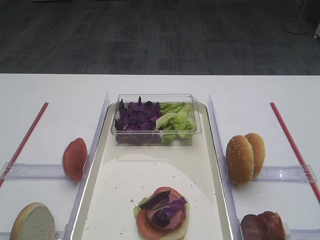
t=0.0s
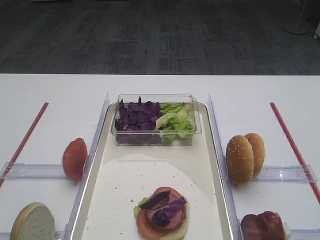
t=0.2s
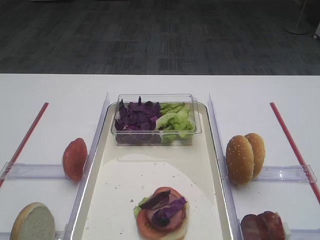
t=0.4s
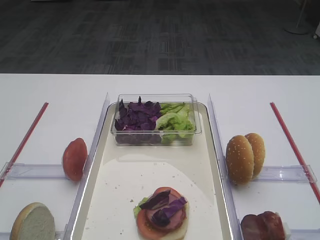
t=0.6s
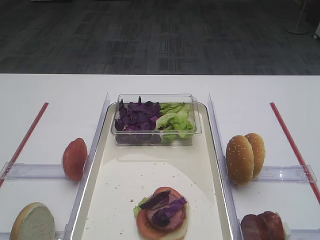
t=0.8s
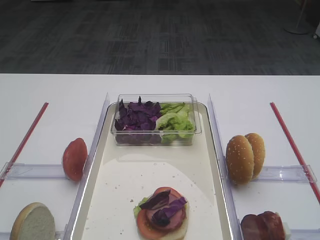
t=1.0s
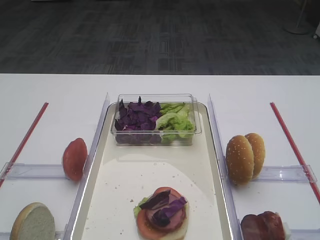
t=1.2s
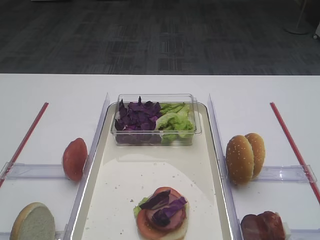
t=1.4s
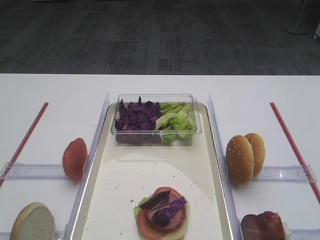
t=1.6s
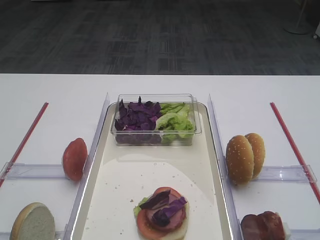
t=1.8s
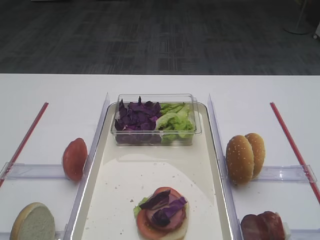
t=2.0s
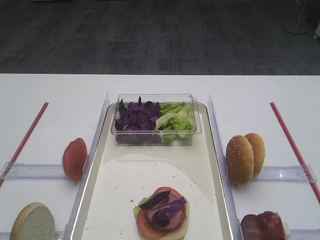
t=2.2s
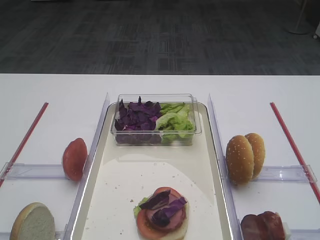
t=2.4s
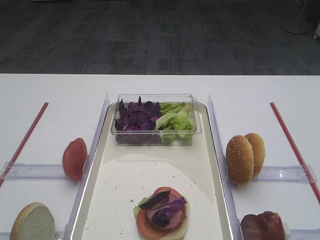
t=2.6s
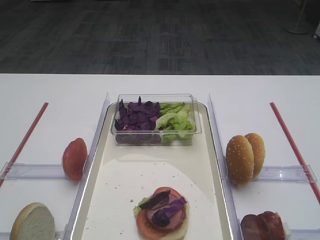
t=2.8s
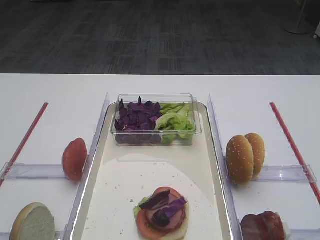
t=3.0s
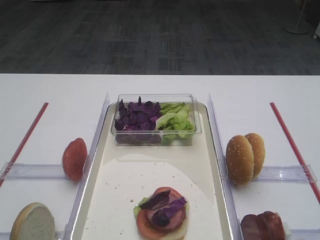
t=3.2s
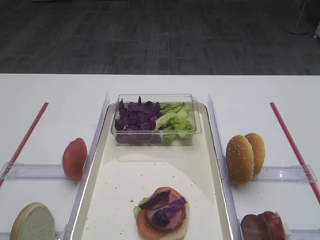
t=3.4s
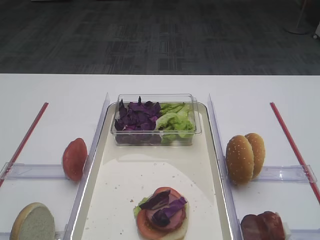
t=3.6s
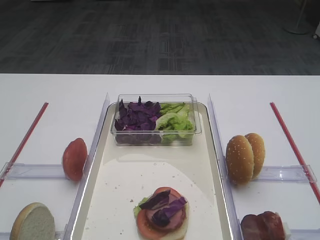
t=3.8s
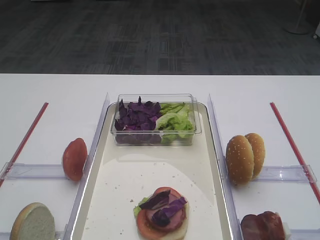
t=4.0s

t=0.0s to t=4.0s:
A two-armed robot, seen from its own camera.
t=0.0s to t=4.0s: Neither gripper changes place.

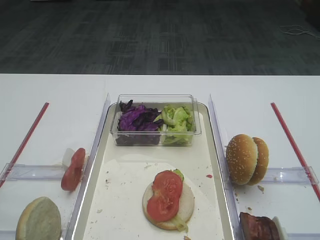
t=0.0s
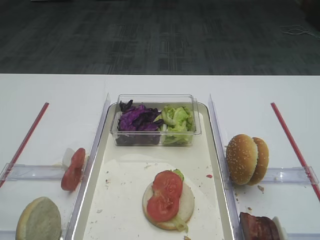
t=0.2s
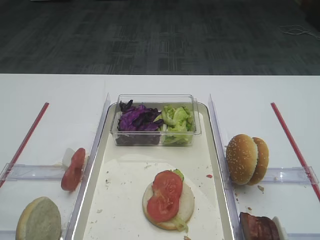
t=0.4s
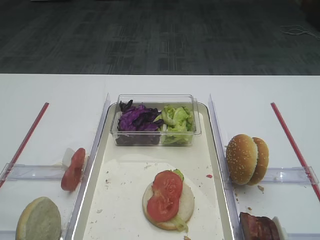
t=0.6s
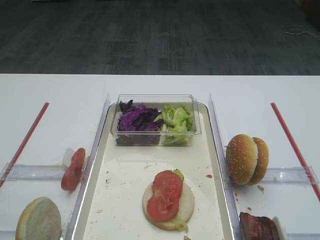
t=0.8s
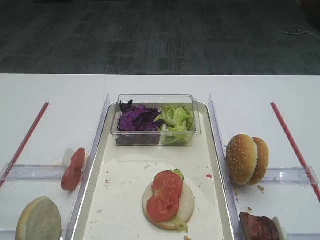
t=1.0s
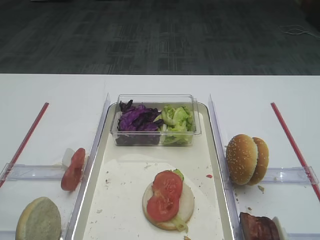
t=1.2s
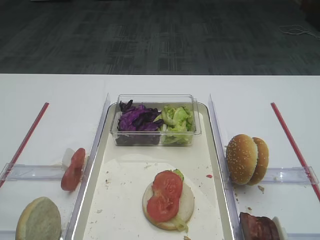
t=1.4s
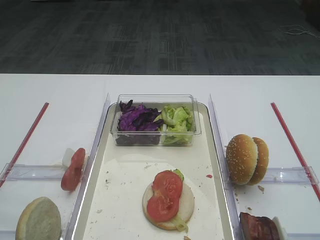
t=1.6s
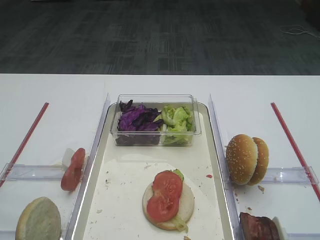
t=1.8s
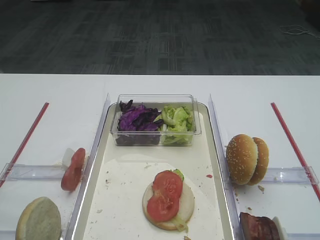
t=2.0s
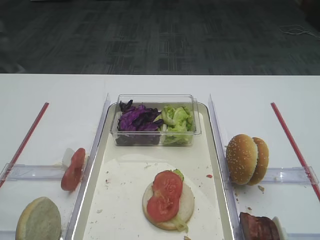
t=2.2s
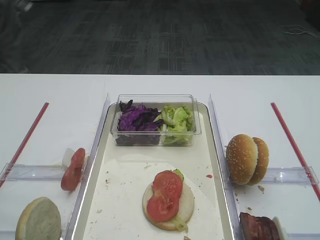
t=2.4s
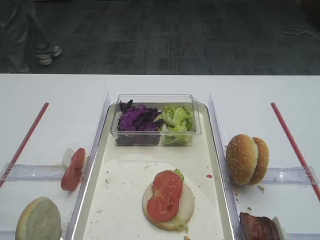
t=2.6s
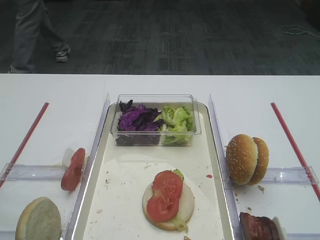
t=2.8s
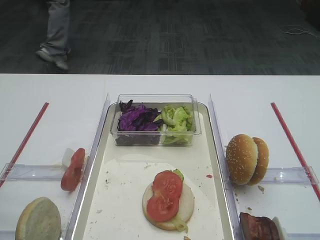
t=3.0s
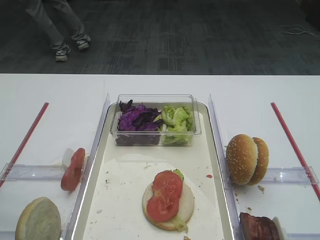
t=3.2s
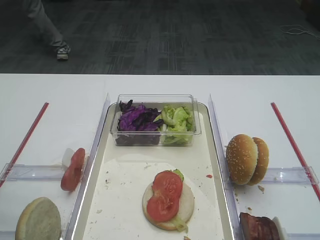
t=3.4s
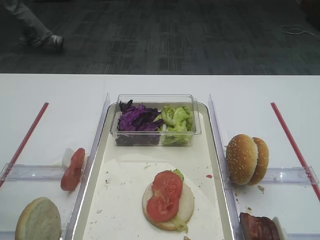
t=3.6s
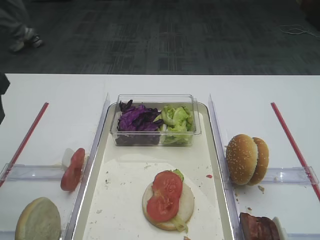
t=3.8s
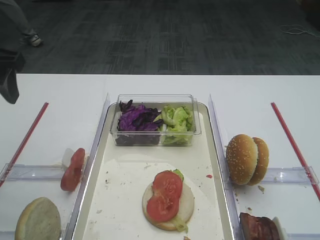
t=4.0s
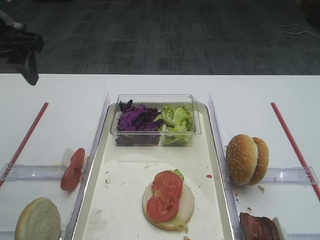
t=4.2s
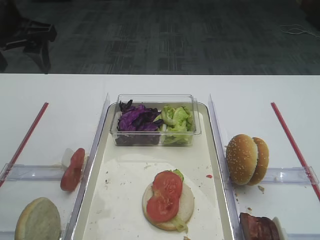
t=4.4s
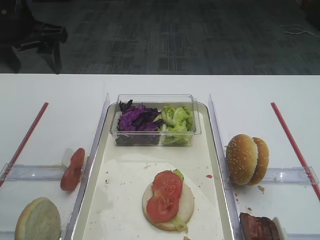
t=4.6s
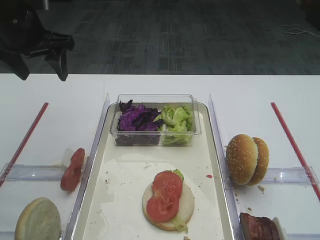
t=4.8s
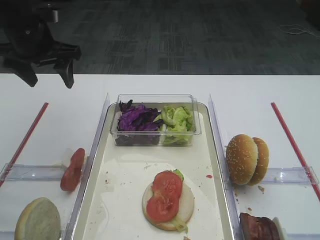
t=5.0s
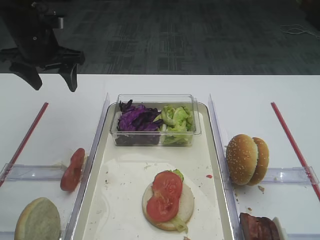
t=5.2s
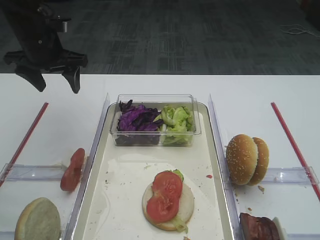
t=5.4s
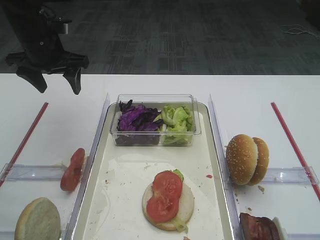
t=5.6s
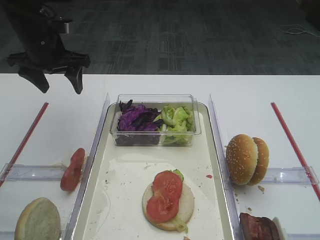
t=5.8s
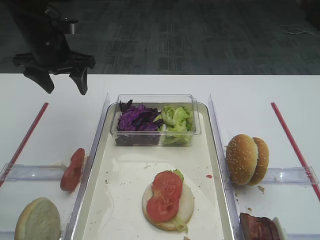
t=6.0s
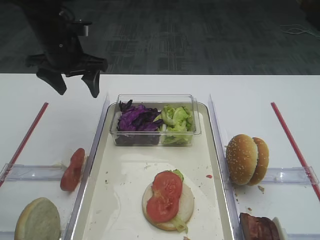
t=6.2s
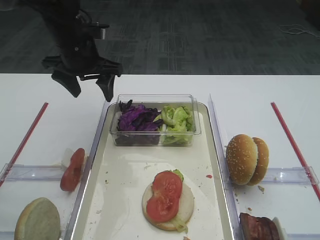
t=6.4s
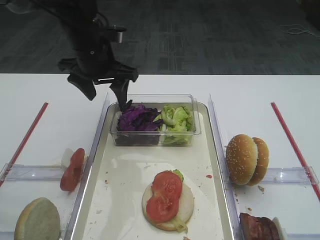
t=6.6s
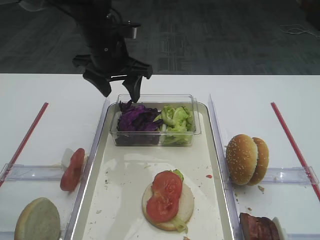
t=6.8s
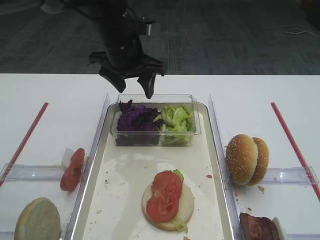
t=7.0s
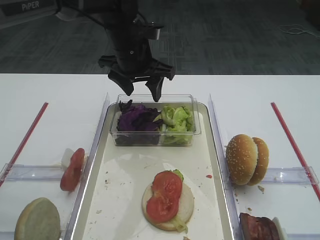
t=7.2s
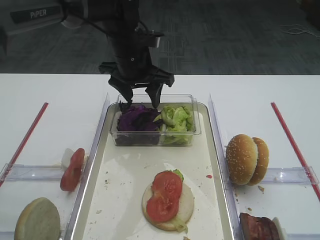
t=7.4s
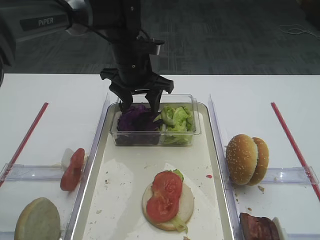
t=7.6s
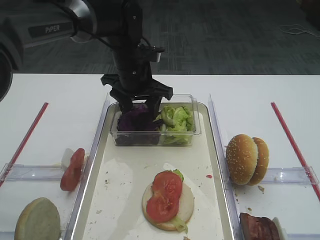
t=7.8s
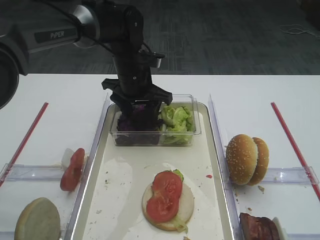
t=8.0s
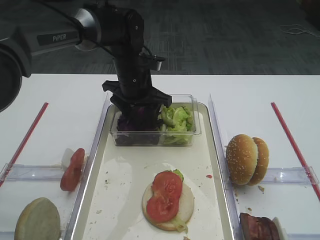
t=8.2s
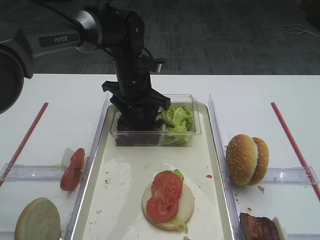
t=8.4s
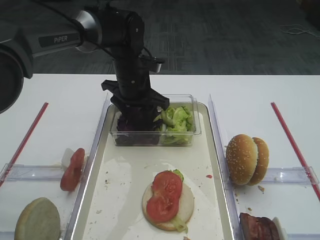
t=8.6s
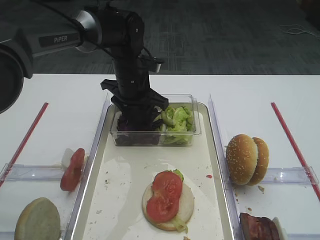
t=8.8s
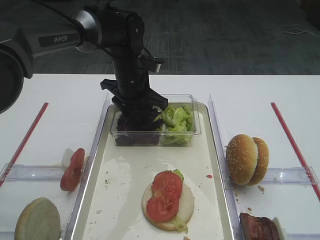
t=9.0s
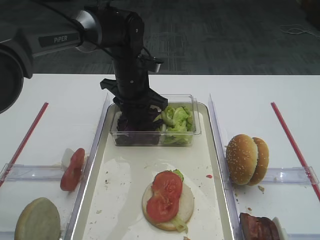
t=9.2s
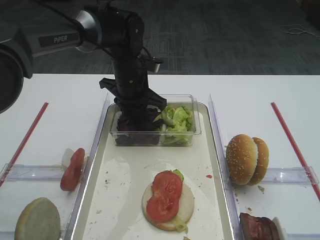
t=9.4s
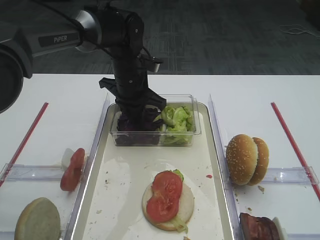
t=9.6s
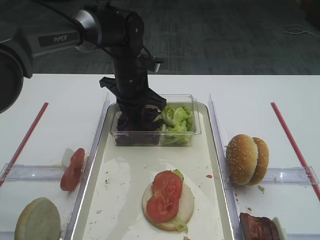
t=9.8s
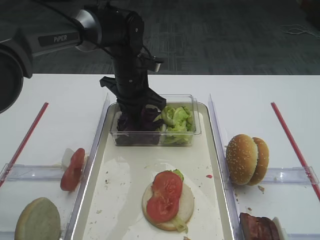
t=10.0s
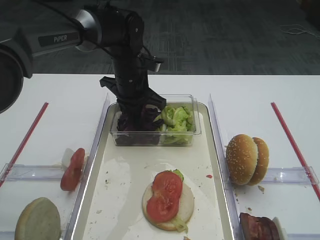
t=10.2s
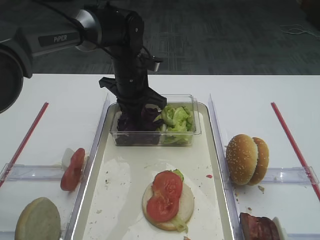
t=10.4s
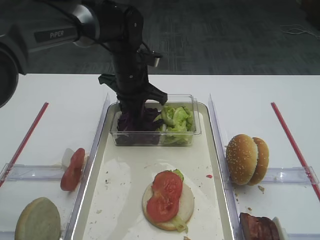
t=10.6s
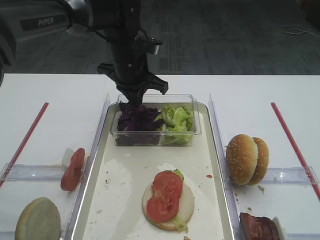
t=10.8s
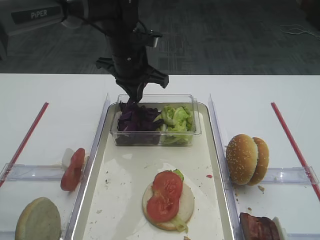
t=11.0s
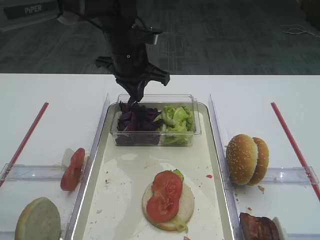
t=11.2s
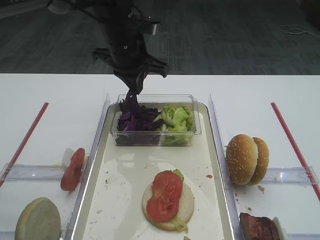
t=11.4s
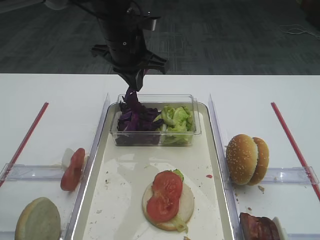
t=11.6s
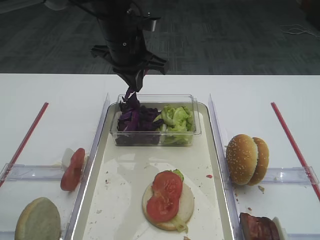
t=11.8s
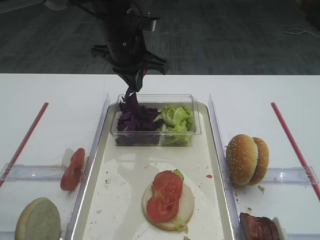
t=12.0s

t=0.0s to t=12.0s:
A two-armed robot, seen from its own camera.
t=1.6s to t=3.0s: The left gripper heads forward, covering roughly 10 cm.
t=3.0s to t=4.4s: The left gripper travels forward by approximately 25 cm.
t=4.4s to t=6.0s: The left gripper is displaced forward and downward by some 10 cm.
t=6.0s to t=7.6s: The left gripper is displaced to the right by about 15 cm.
t=7.6s to t=9.0s: There are only small adjustments of the grippers.
t=10.4s to t=12.0s: The left gripper travels upward by roughly 10 cm.

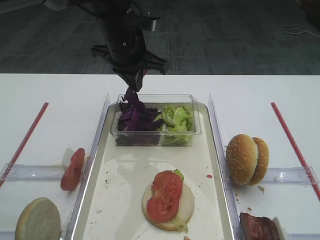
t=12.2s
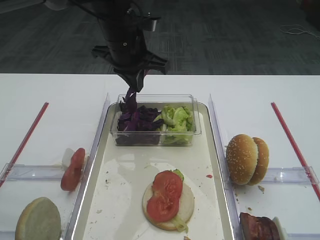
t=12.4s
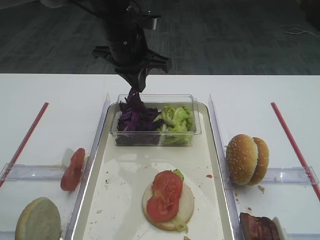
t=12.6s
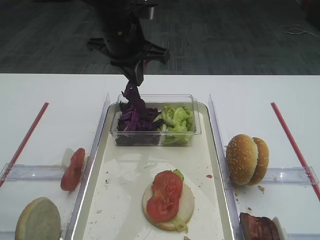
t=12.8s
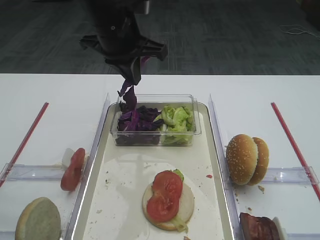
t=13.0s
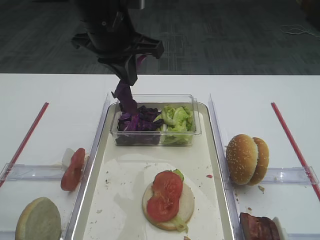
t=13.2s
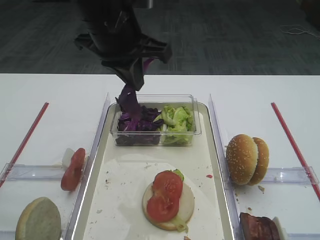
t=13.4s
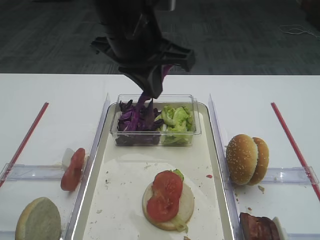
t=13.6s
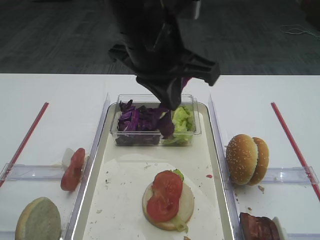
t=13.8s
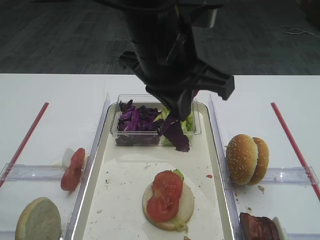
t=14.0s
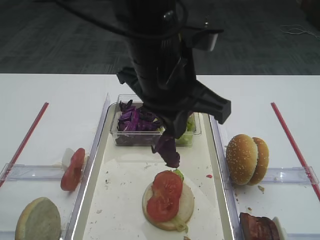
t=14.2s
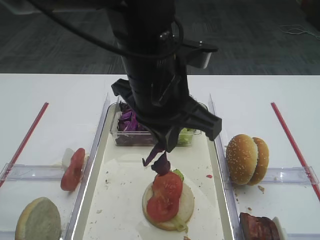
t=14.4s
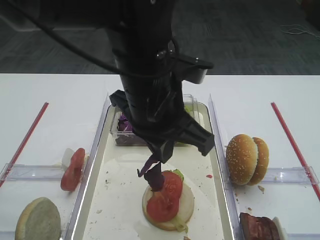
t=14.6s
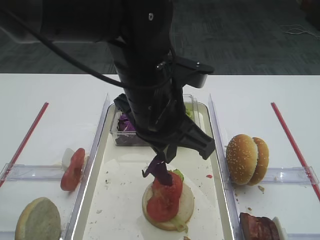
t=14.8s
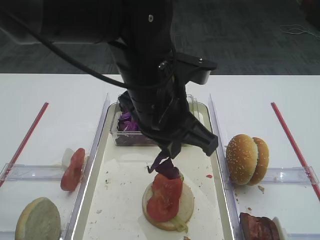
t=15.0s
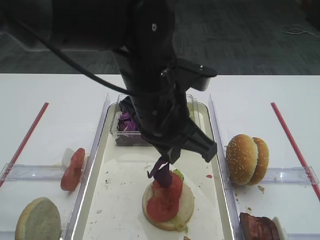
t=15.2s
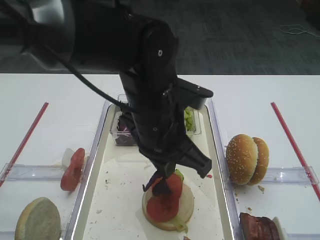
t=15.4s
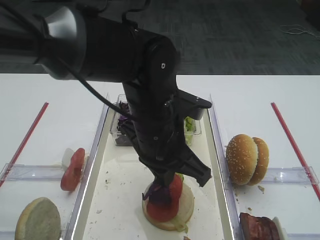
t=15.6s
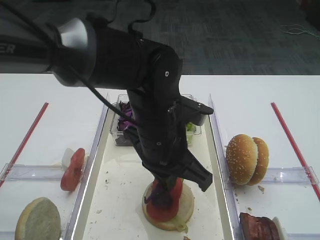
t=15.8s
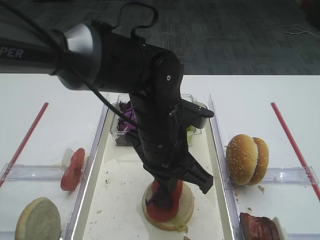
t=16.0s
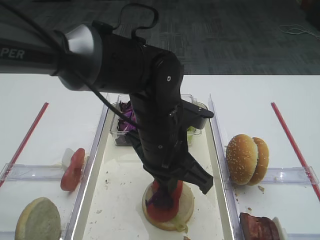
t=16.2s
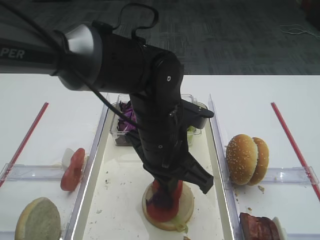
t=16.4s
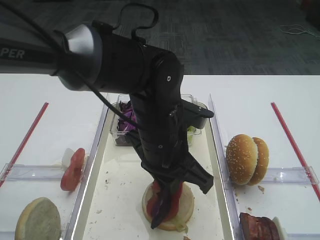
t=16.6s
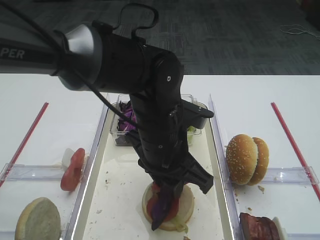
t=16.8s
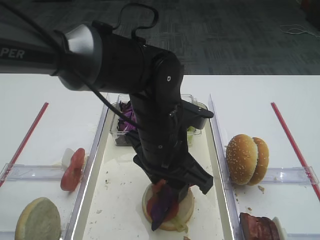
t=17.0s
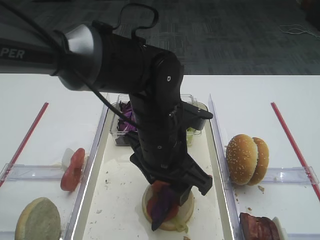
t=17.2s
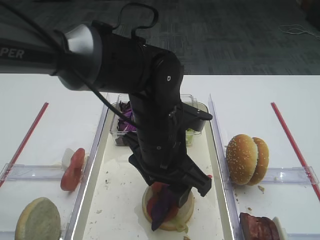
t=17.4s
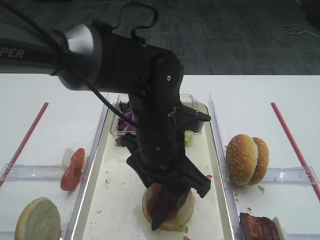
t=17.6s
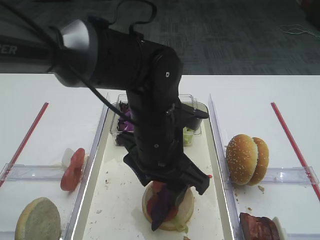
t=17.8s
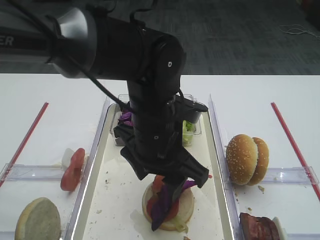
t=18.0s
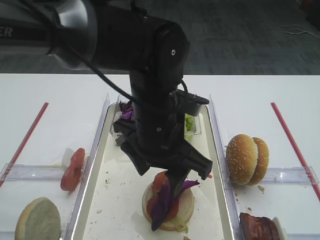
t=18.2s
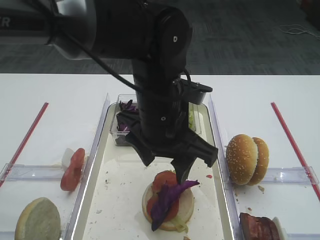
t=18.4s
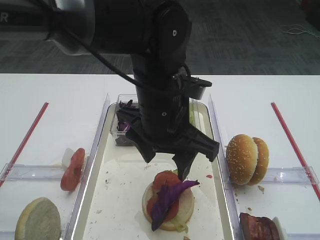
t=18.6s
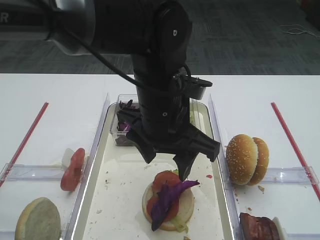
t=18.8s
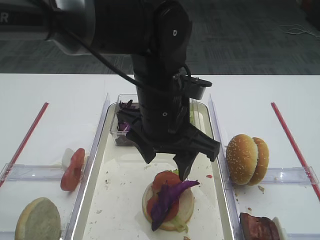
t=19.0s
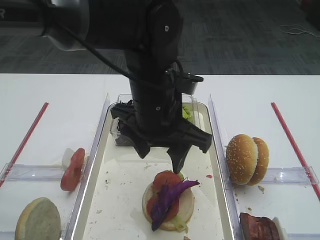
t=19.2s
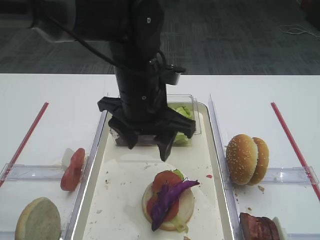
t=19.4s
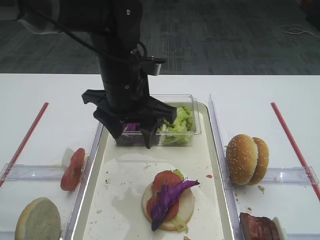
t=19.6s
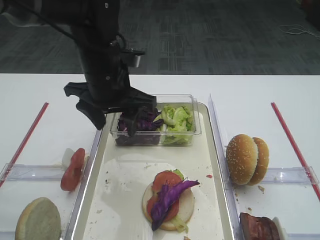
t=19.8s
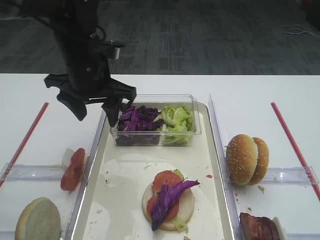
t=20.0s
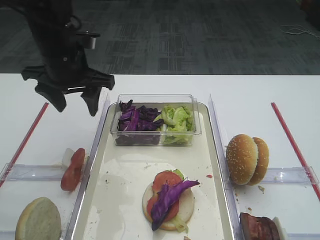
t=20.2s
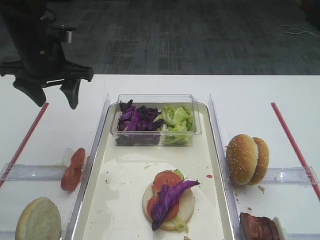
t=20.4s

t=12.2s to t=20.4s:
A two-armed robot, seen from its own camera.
Step, t=12.8s to t=18.4s: Place the purple cabbage on the tomato slice with the left gripper.
t=12.2s to t=13.8s: The left gripper moves backward and upward, roughly 15 cm.
t=13.8s to t=15.4s: The left gripper travels downward by approximately 10 cm.
t=15.4s to t=17.2s: The left gripper opens up.
t=17.2s to t=18.8s: The grippers move only a little.
t=18.8s to t=20.4s: The left gripper is displaced to the left and forward by roughly 25 cm.
